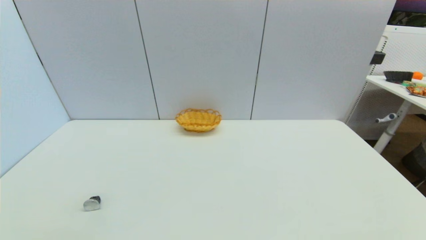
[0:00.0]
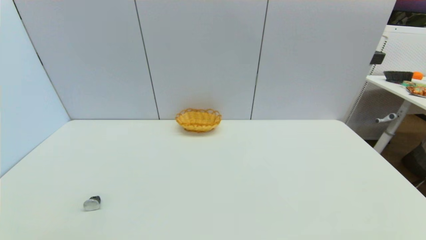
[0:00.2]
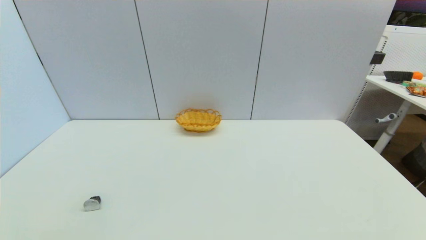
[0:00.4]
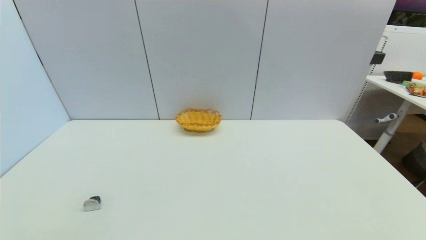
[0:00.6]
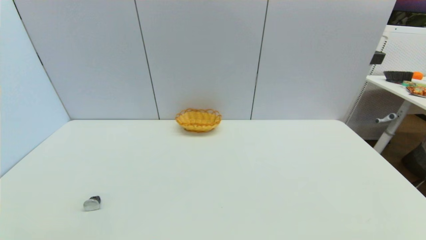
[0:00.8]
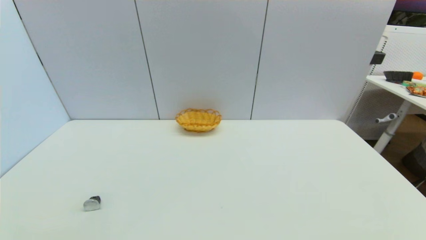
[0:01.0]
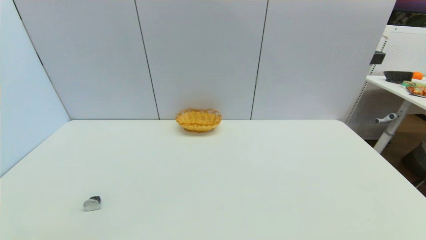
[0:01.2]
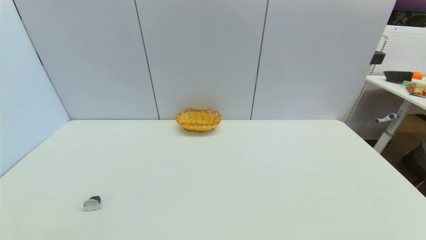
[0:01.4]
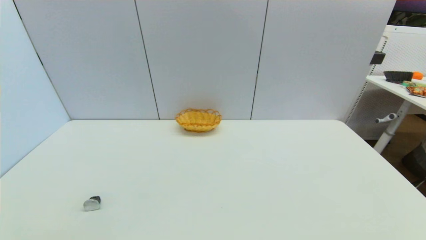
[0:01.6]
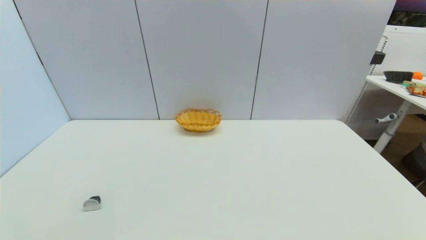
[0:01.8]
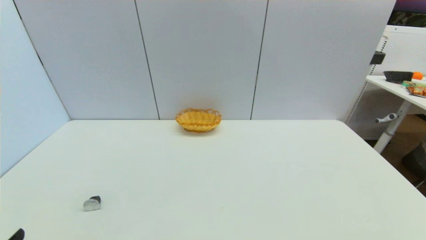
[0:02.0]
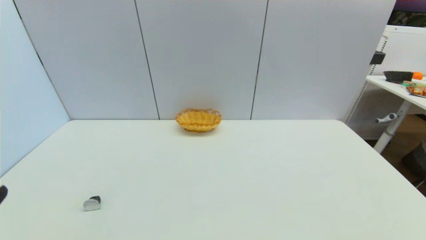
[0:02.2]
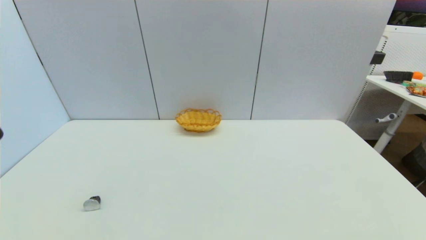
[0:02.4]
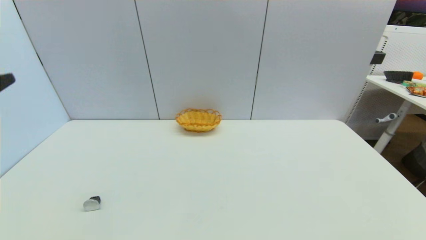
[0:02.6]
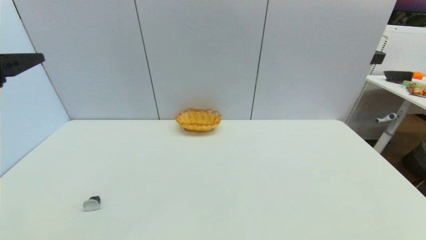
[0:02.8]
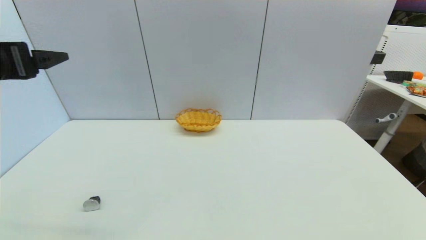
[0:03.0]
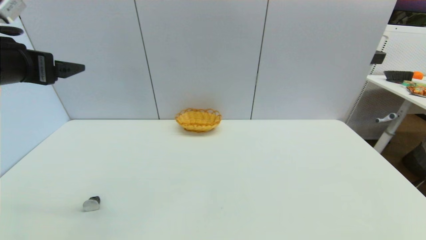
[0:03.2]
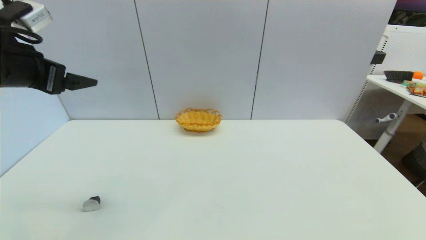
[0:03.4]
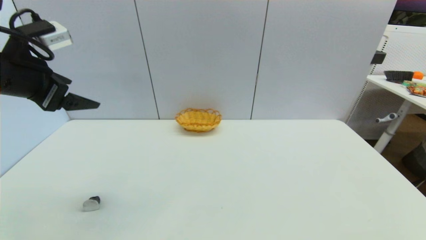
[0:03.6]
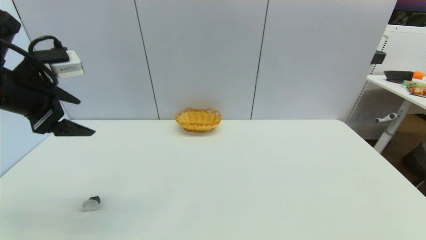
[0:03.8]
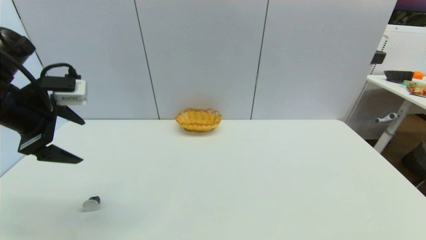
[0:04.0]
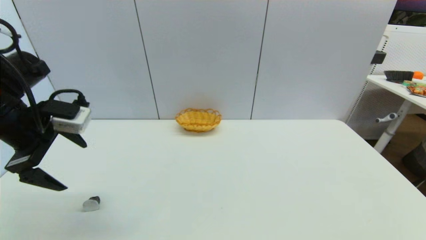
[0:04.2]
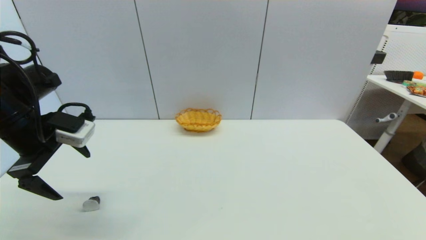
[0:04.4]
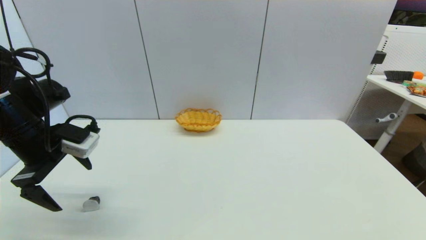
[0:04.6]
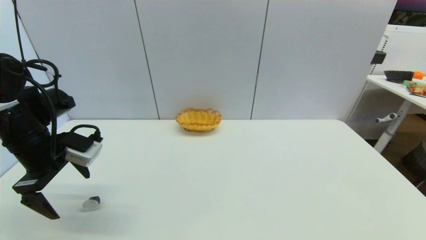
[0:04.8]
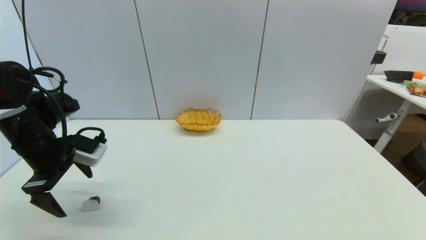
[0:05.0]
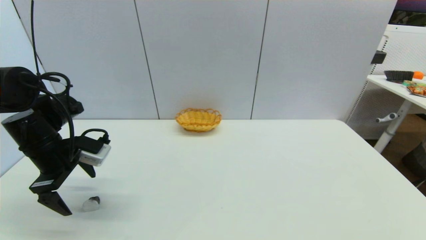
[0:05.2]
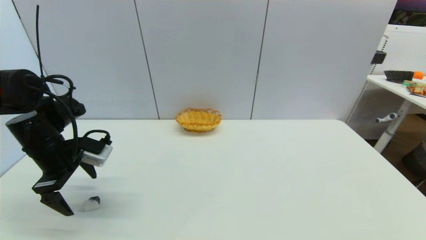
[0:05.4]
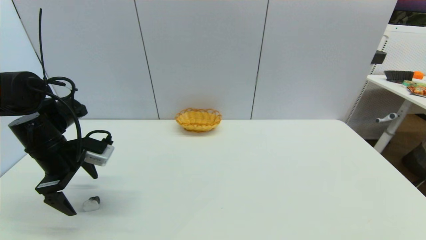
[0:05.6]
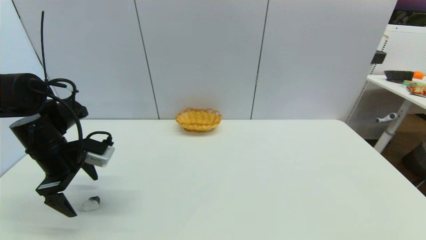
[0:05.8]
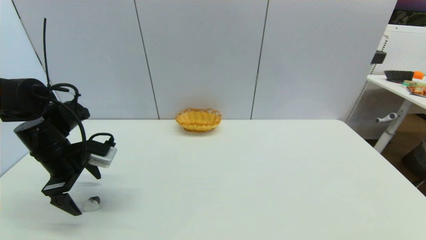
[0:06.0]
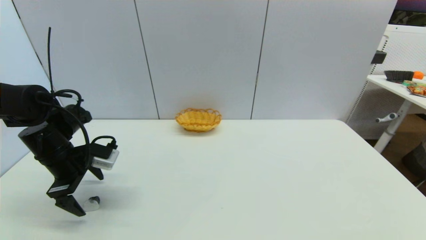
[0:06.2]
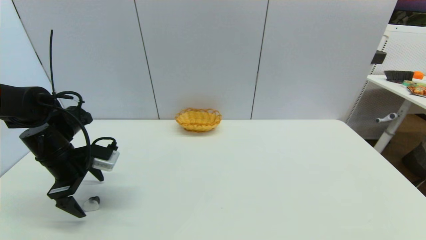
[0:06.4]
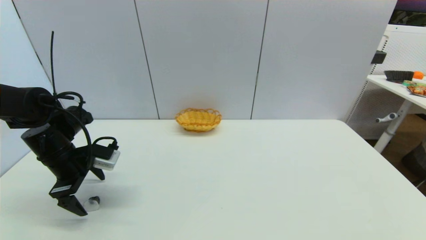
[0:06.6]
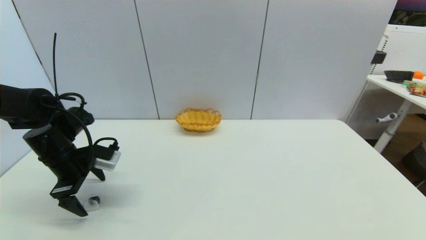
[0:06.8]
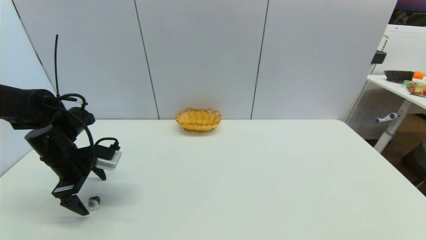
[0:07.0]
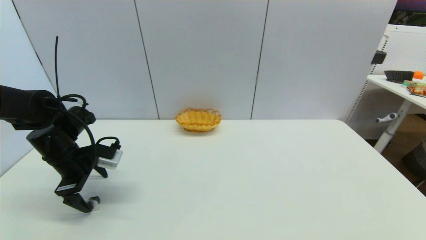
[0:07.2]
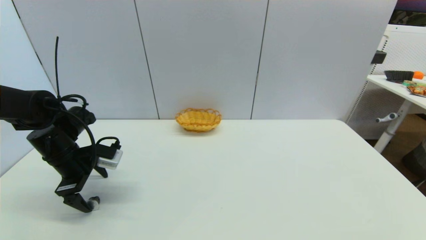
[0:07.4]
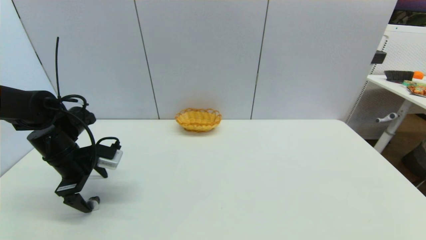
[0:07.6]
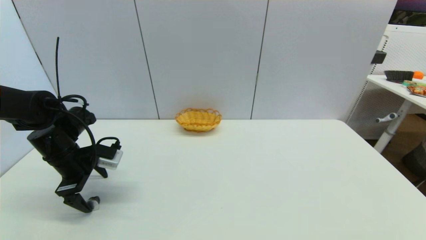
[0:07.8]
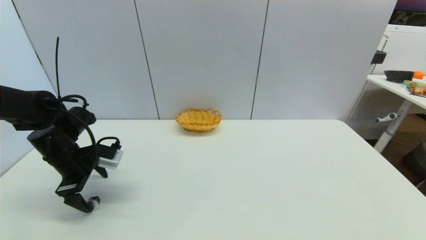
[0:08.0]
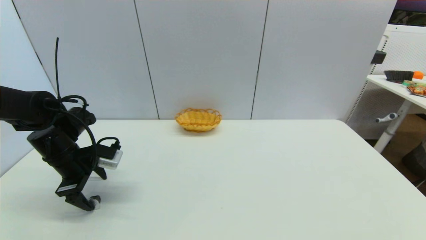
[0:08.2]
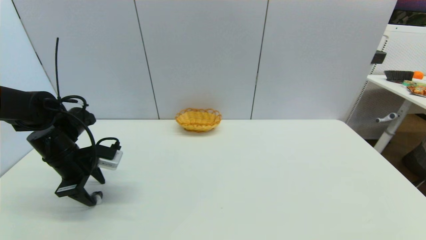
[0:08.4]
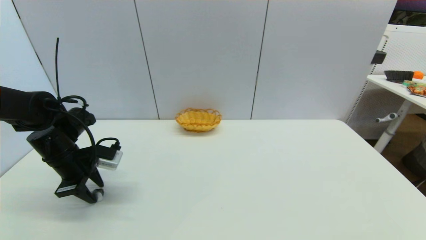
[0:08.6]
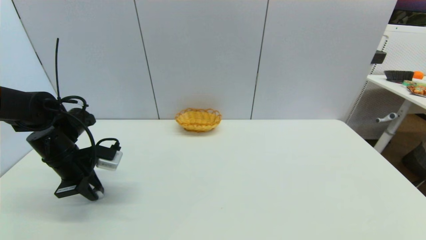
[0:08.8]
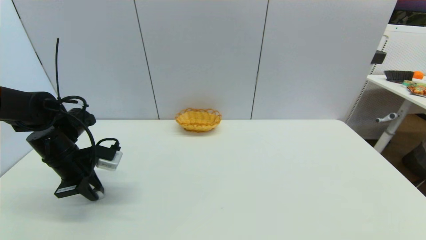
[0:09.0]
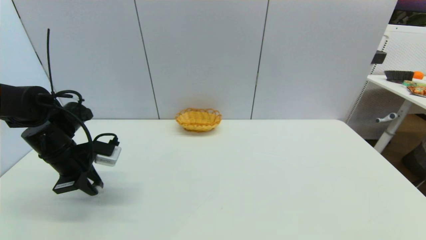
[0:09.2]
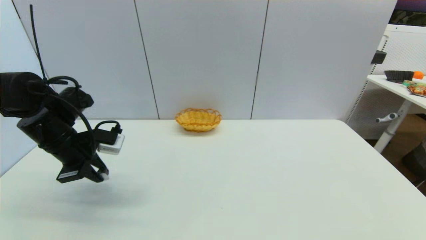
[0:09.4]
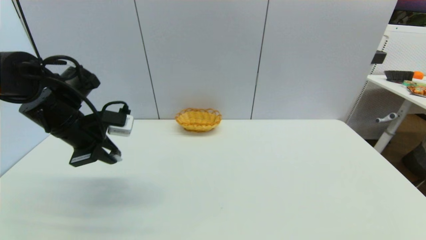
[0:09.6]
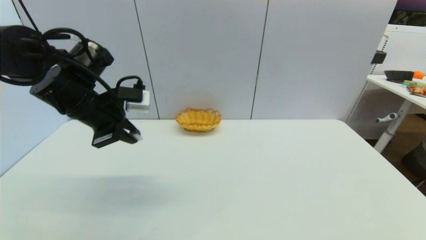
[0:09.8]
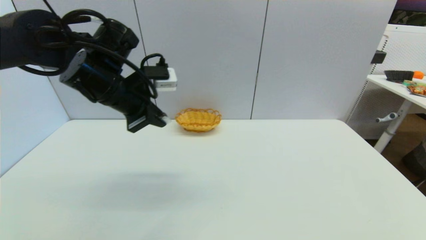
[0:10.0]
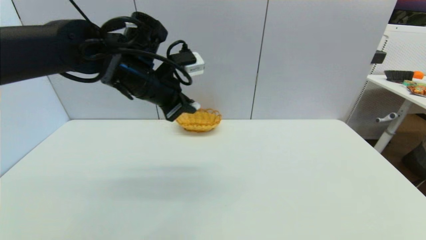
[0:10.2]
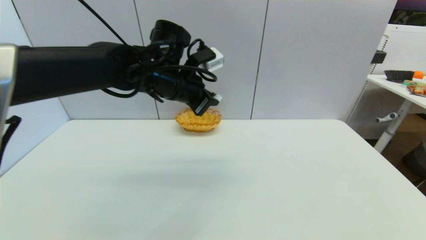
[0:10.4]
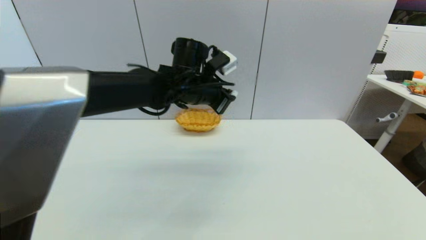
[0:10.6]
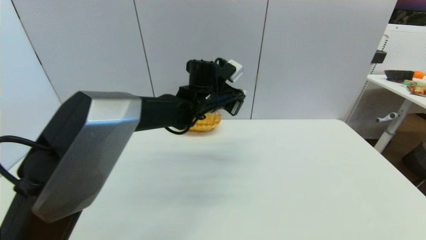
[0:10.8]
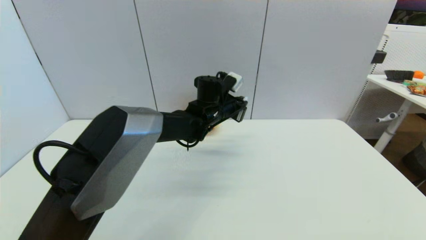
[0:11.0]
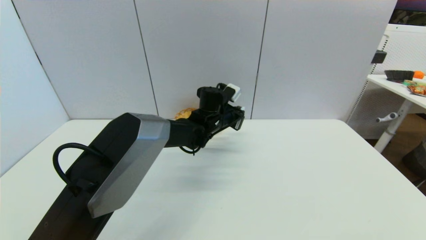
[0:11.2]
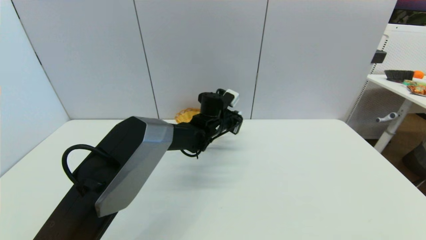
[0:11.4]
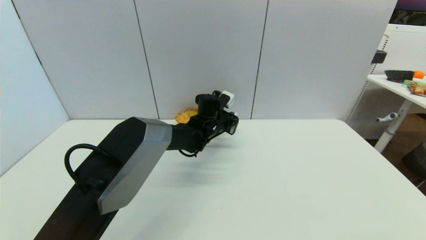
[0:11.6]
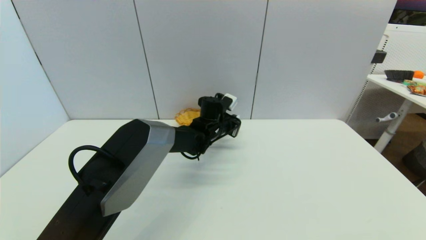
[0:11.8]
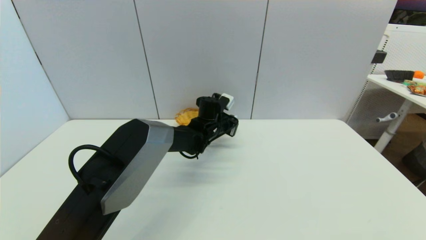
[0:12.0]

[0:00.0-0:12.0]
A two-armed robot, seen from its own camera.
Step, 0:02.0 to 0:08.8: Grasp the coffee capsule with left gripper.
0:00.0 to 0:01.6: Neither gripper changes place.
0:01.6 to 0:03.0: The left gripper moves upward and forward, some 35 cm.
0:03.0 to 0:04.4: The left gripper goes about 10 cm downward.
0:04.4 to 0:06.0: The left gripper travels downward by approximately 10 cm.
0:06.0 to 0:07.6: The grippers make only small movements.
0:07.6 to 0:09.0: The left gripper closes its fingers.
0:09.0 to 0:10.4: The left gripper goes about 25 cm to the right and upward.
0:10.4 to 0:12.0: The left gripper is displaced downward, forward and to the right by some 20 cm.

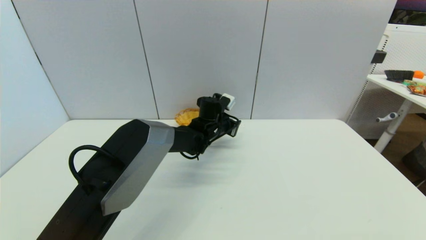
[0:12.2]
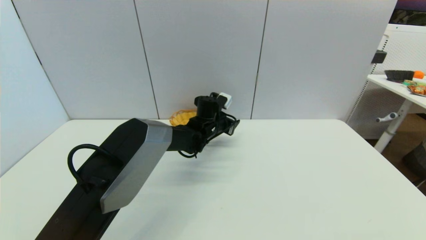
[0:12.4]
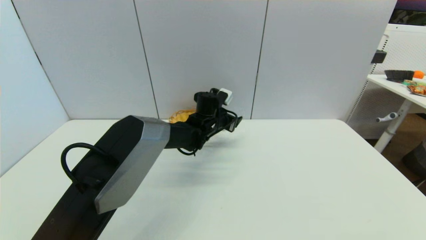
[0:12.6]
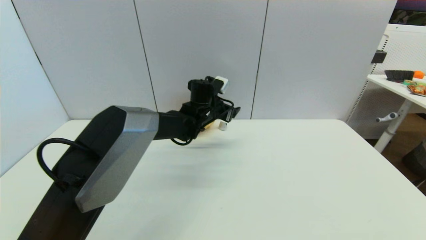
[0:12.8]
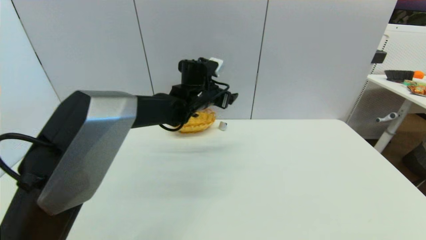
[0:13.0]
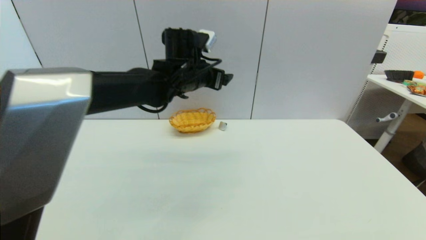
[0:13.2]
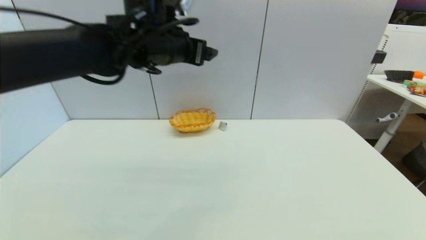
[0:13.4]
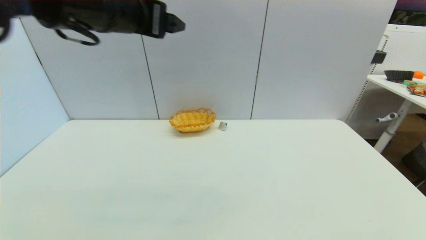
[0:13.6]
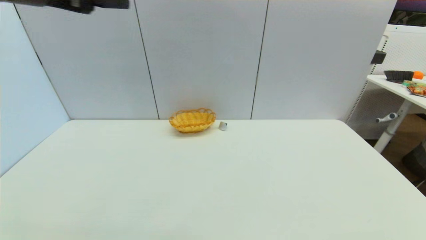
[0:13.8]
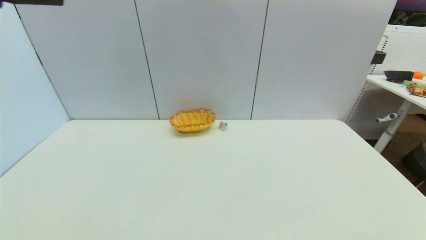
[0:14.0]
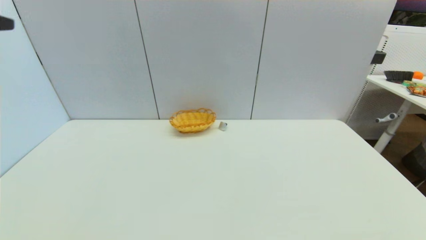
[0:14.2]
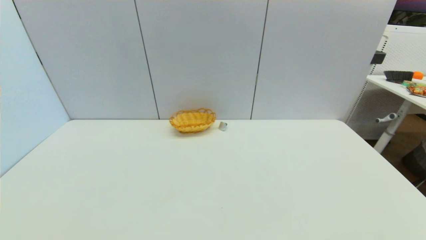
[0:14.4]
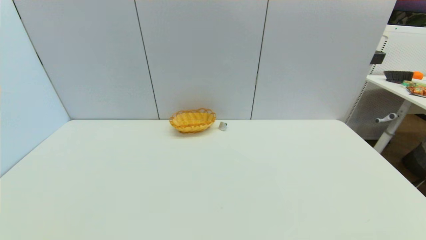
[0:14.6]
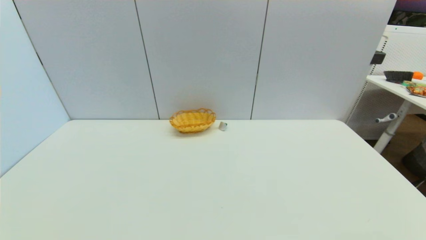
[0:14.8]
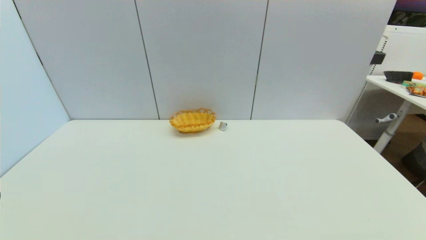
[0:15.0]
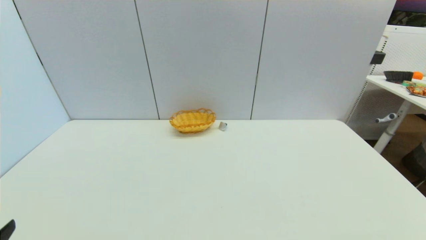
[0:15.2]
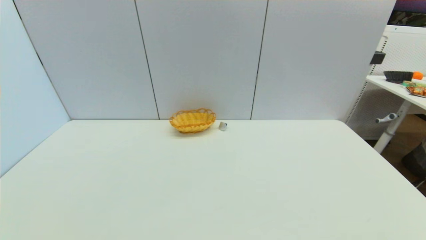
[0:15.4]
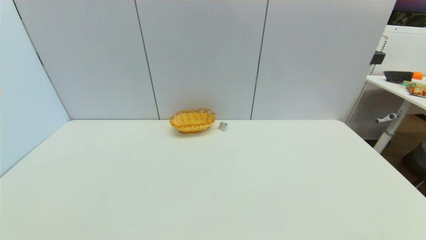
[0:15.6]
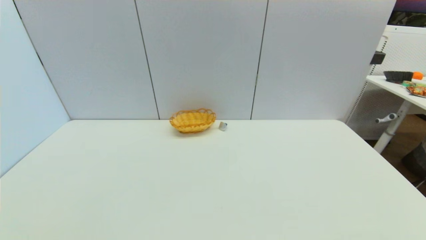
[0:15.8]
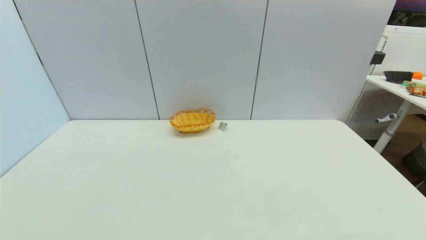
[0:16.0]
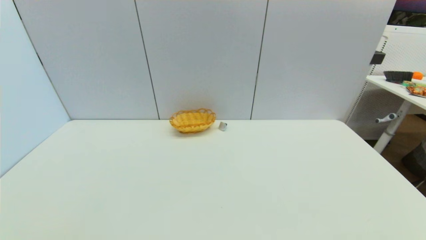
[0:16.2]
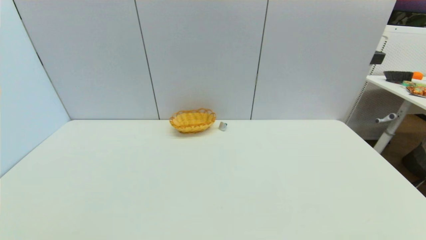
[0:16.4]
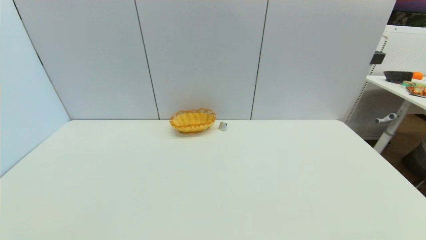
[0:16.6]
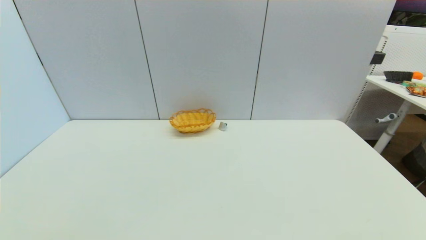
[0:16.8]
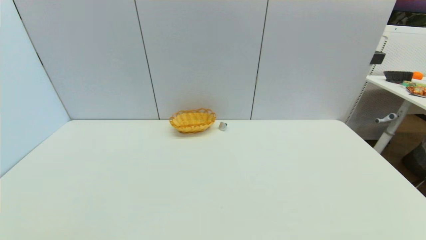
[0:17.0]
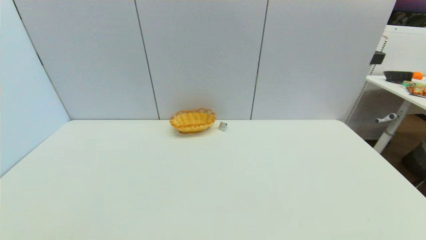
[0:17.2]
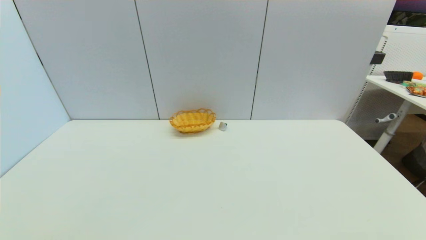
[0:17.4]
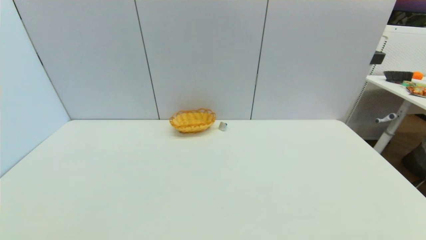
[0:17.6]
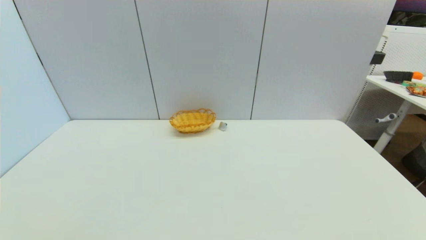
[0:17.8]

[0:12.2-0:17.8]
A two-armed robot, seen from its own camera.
0:12.2 to 0:13.6: The left gripper heads upward, backward and to the left, covering roughly 40 cm, and opens.
0:13.6 to 0:15.0: The left gripper shifts approximately 35 cm backward, downward and to the left.
0:16.4 to 0:17.8: Both grippers stay about where they are.
